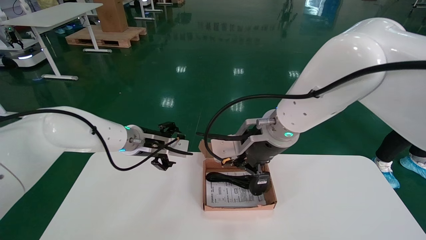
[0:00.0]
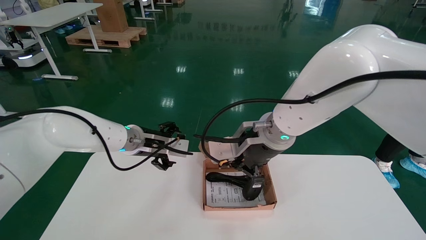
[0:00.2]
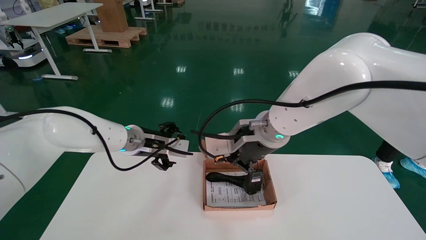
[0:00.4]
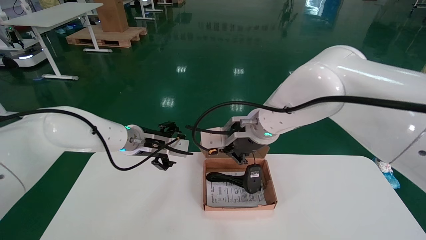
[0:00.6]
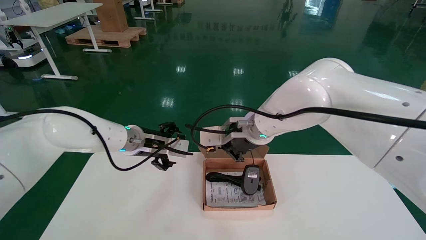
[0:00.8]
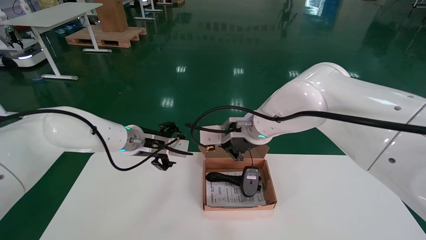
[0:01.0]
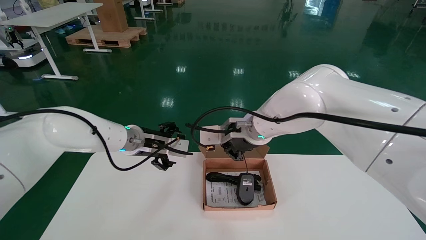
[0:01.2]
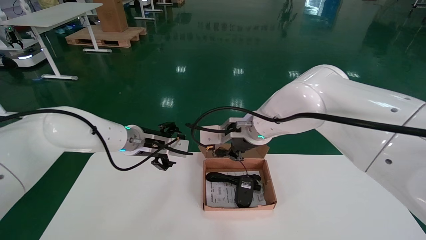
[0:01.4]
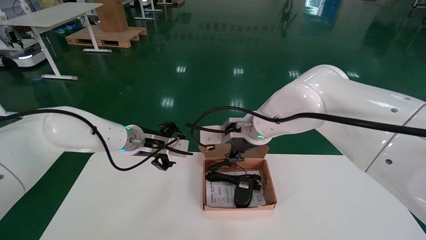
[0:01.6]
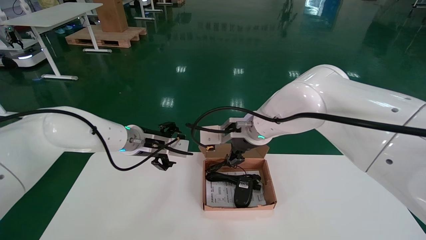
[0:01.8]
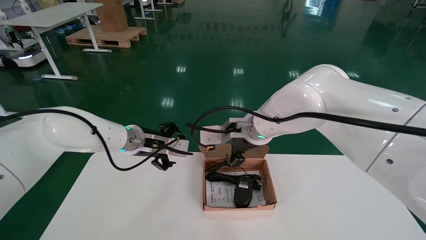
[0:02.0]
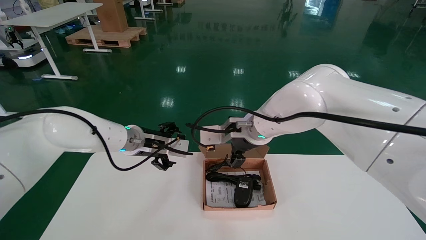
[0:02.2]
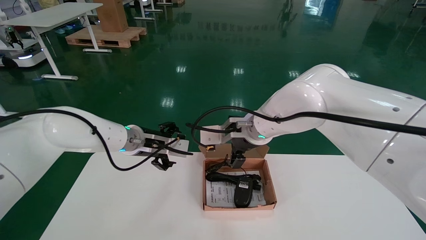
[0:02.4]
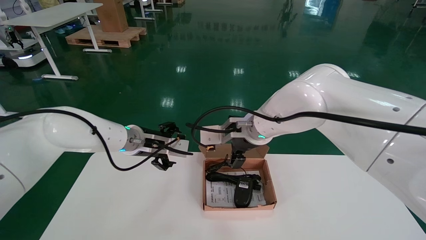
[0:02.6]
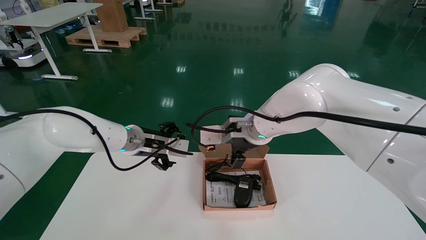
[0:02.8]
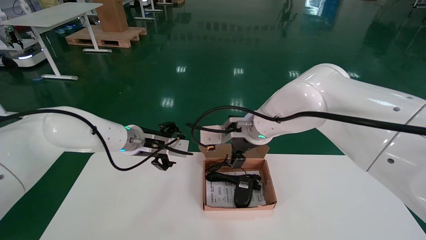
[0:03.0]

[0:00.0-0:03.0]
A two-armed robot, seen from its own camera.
0:00.0 to 0:01.6: The right gripper shifts some 5 cm forward.
0:01.6 to 0:03.0: The right gripper opens.
